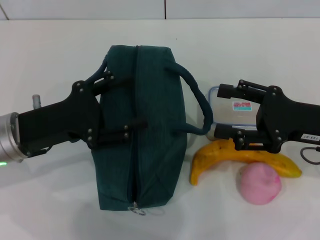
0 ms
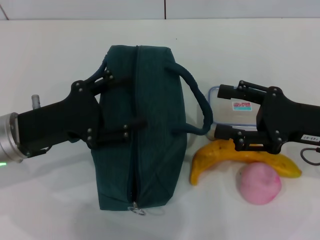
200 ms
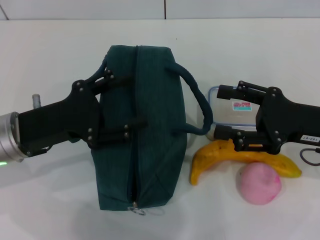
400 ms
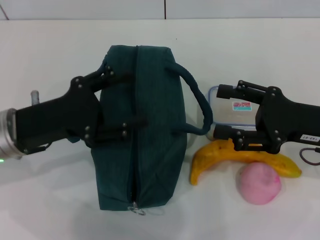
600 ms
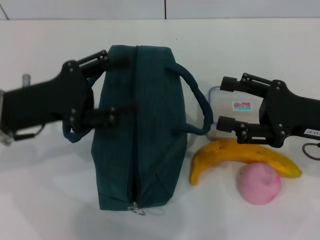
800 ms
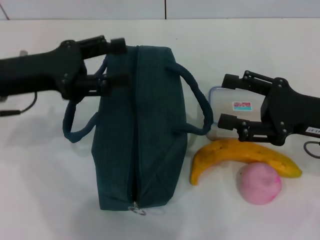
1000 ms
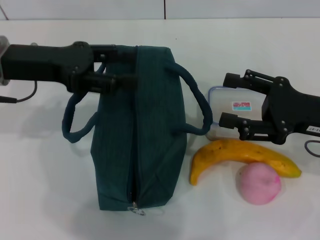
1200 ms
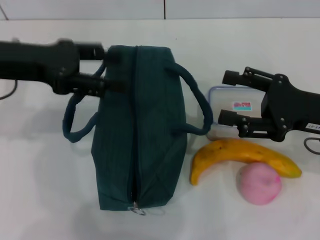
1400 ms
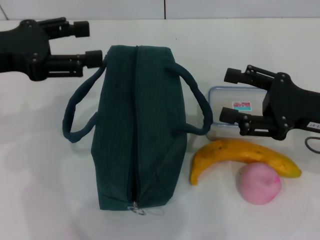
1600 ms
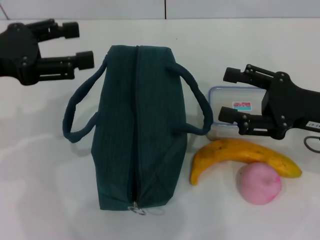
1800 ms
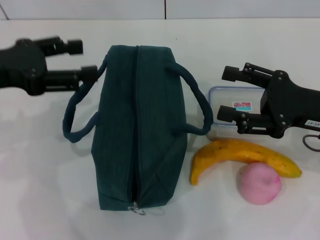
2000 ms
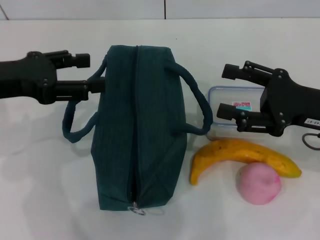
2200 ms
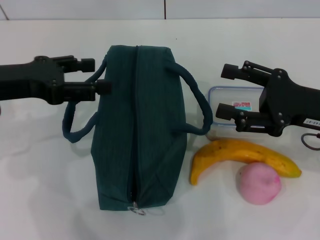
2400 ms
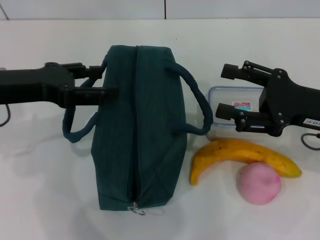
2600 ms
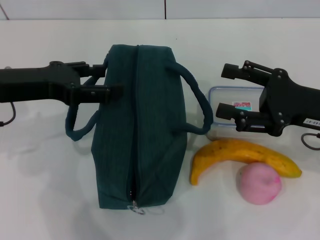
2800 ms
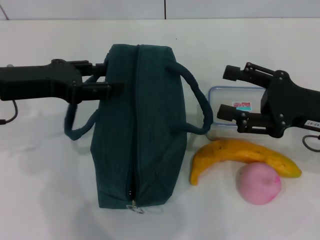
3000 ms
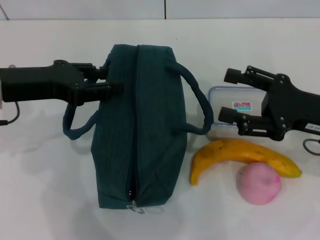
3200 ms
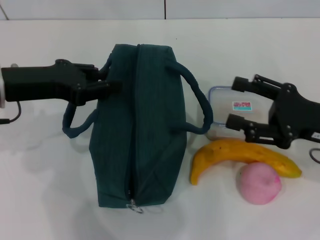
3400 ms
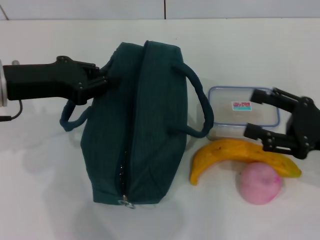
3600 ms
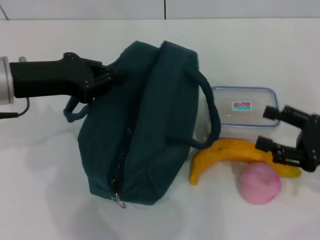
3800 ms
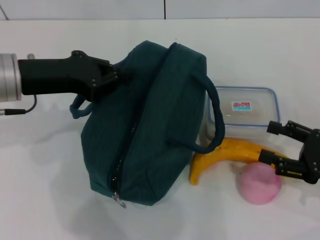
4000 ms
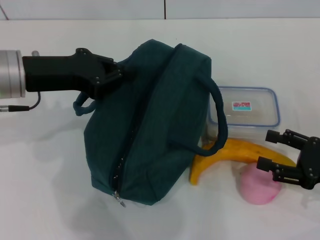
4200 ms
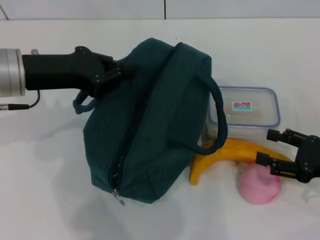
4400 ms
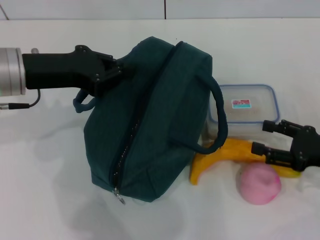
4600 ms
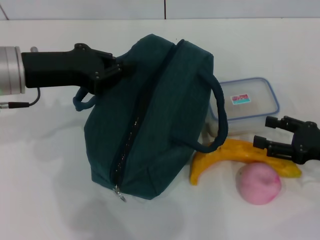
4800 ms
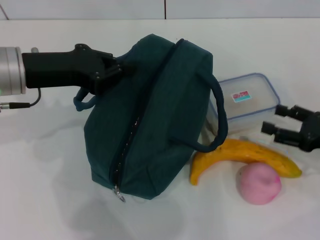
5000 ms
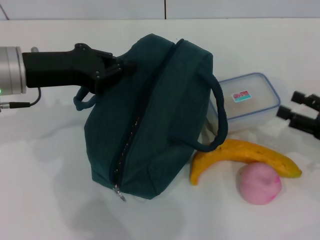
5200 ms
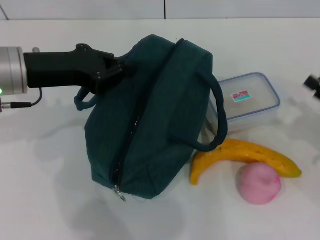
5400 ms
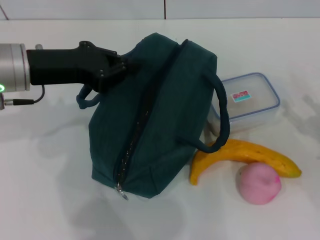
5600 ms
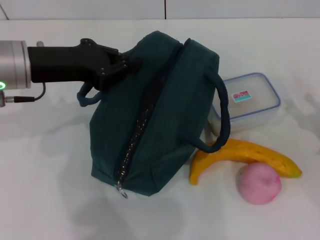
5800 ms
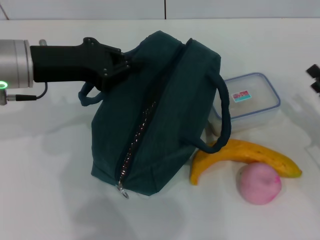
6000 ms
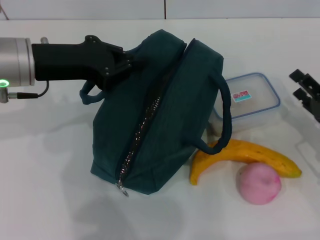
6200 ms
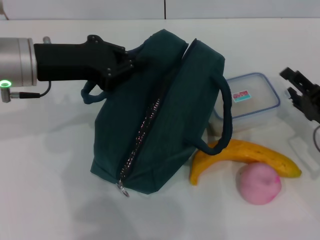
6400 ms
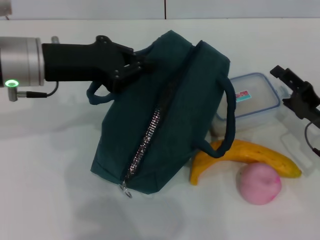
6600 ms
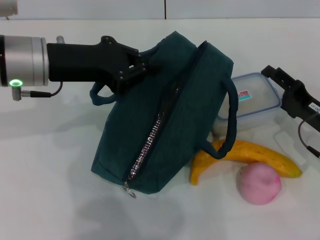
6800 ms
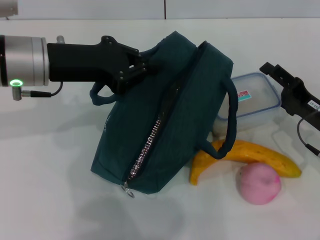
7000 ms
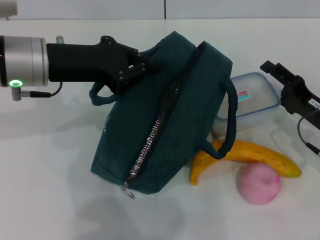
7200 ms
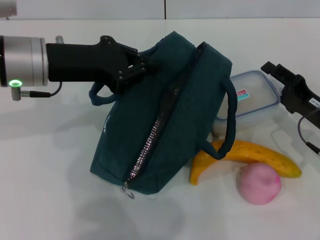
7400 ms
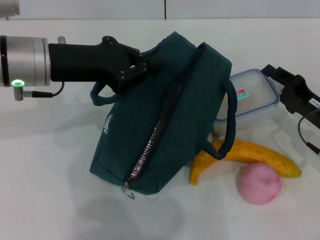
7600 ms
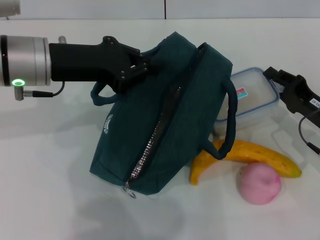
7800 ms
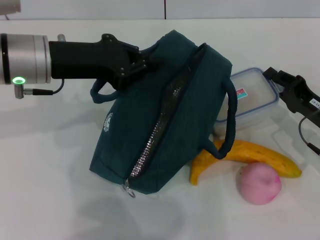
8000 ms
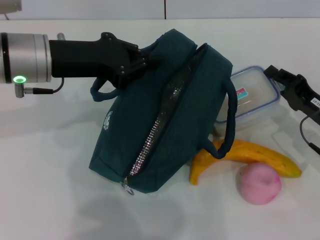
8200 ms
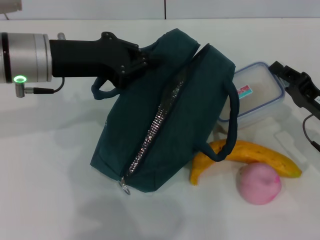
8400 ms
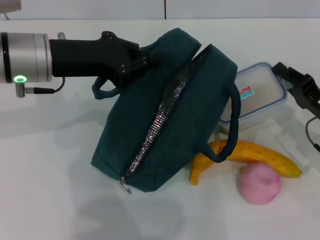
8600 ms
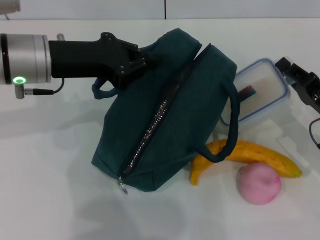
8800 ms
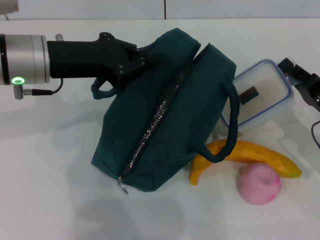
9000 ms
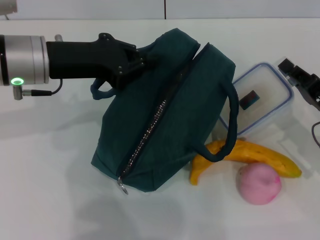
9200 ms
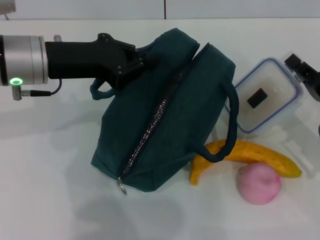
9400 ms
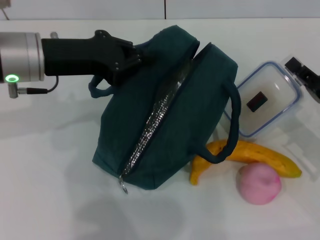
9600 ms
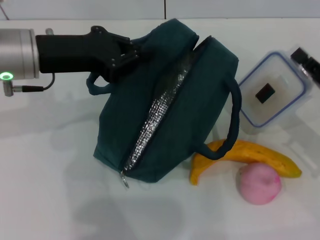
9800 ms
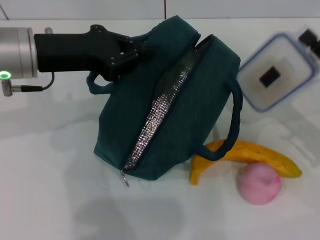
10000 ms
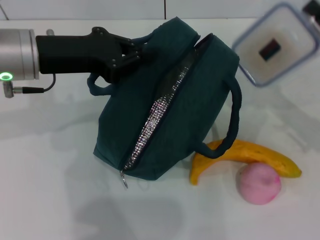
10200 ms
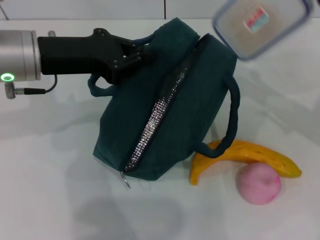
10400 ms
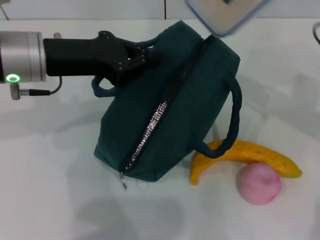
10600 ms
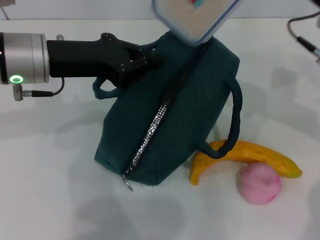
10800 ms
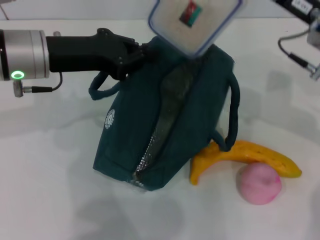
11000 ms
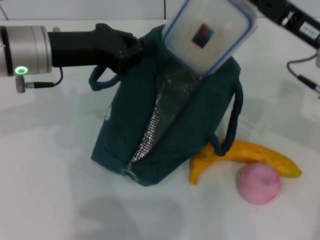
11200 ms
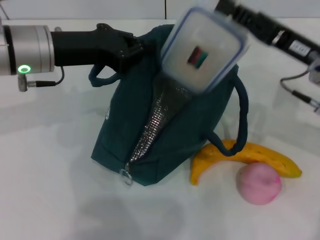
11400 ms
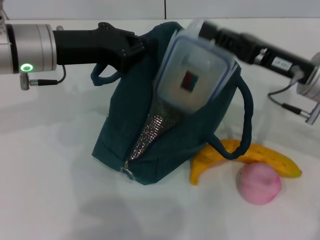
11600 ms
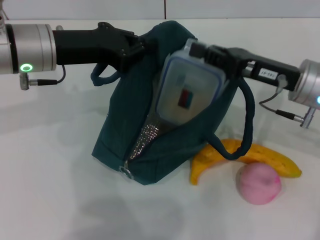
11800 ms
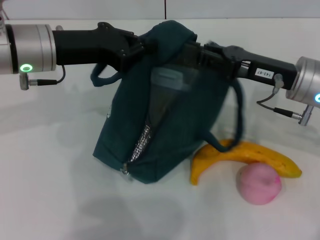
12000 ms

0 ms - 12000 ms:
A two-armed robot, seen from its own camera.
Step, 0 ms - 3600 ms: Hold the lunch bag with your left hand.
Step, 3800 ms - 8000 ms: Pick up the lunch box with your right hand.
Step, 8200 ms - 11800 ms: Place the lunch box into the lunch bag with your right hand.
0 ms - 1600 ms: The left gripper is displaced upward by approximately 10 cm.
1600 ms - 3000 ms: The grippers make only small movements.
3000 ms - 4400 ms: The right gripper is displaced downward and to the right by approximately 10 cm; the left gripper closes up.
6000 ms - 7600 ms: The right gripper moves roughly 5 cm.
7600 ms - 9000 ms: The right gripper closes.
9000 ms - 10400 ms: The right gripper shifts roughly 10 cm upward.
10400 ms - 12000 ms: The right gripper is displaced to the left by approximately 10 cm.

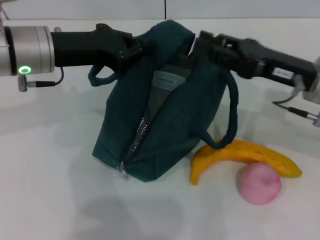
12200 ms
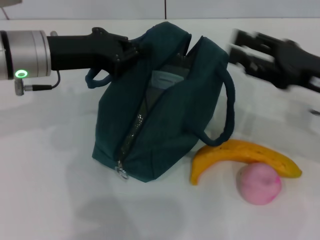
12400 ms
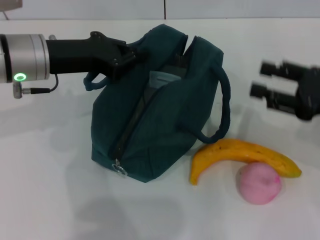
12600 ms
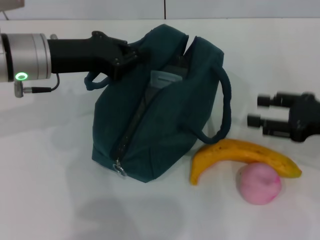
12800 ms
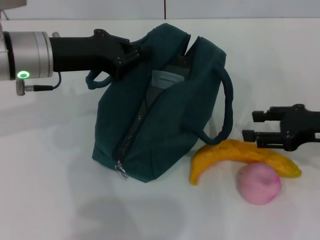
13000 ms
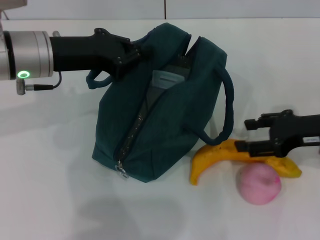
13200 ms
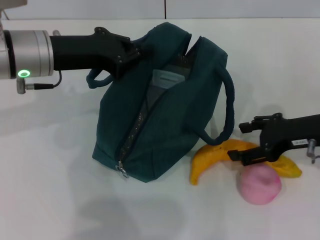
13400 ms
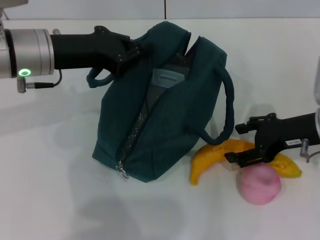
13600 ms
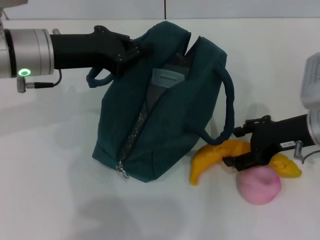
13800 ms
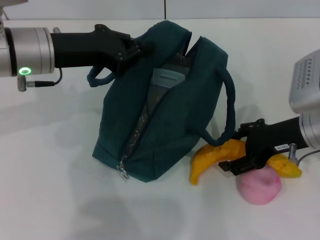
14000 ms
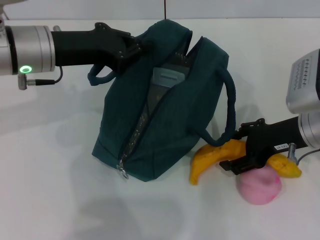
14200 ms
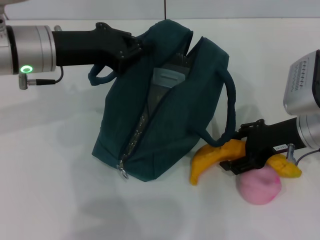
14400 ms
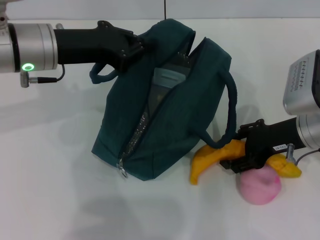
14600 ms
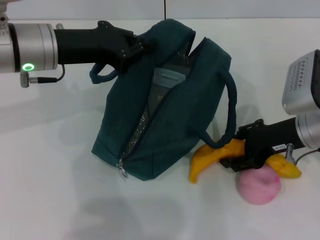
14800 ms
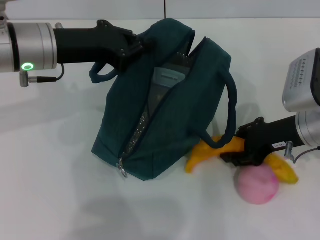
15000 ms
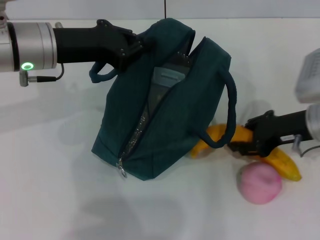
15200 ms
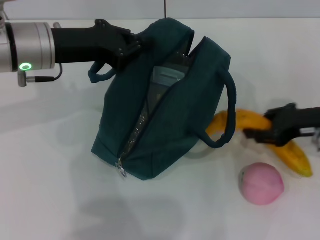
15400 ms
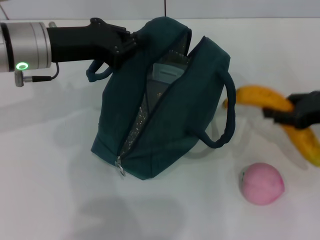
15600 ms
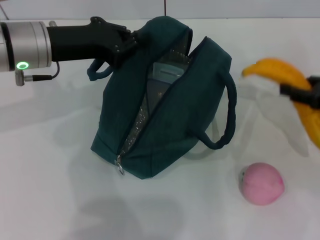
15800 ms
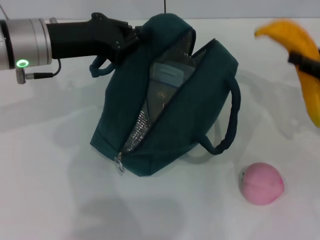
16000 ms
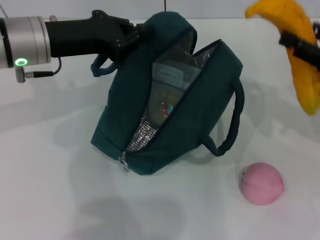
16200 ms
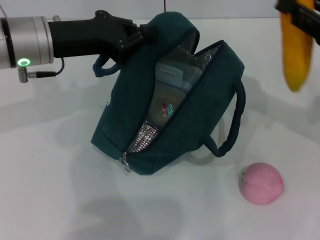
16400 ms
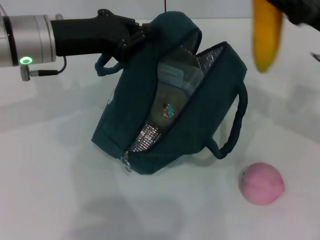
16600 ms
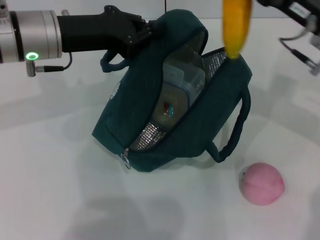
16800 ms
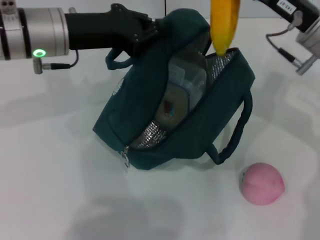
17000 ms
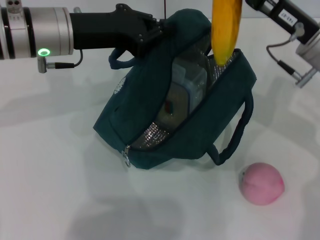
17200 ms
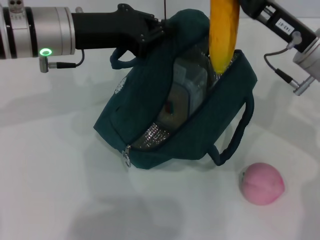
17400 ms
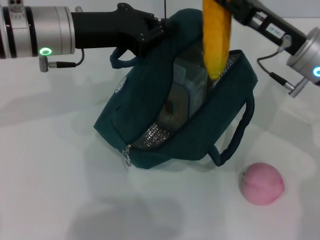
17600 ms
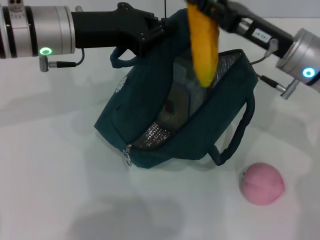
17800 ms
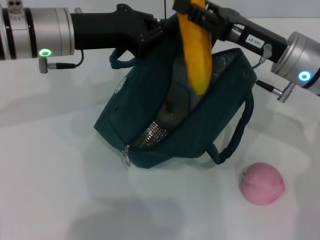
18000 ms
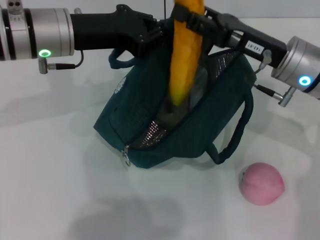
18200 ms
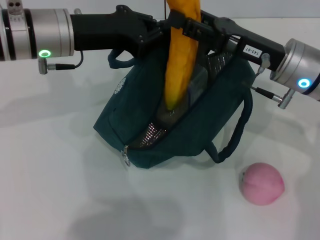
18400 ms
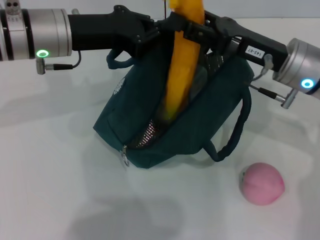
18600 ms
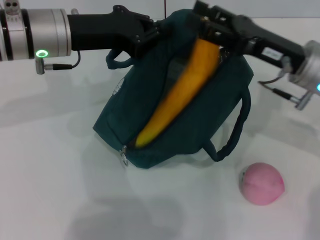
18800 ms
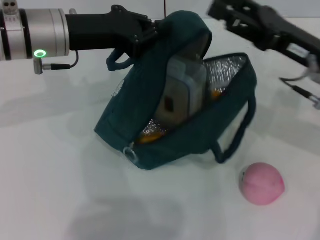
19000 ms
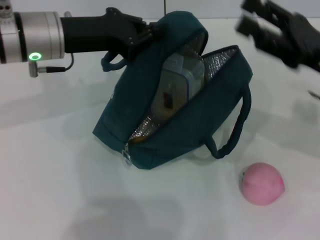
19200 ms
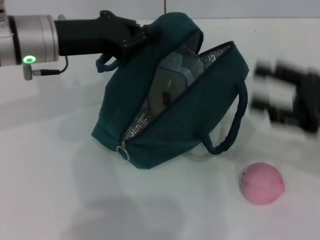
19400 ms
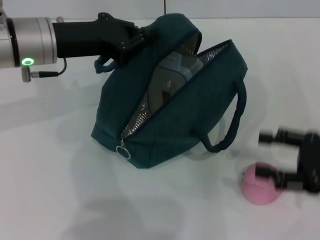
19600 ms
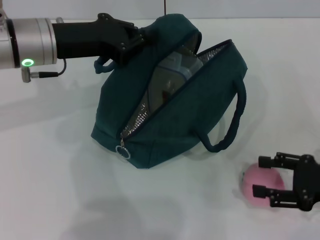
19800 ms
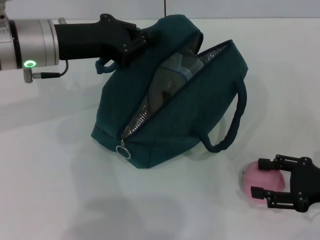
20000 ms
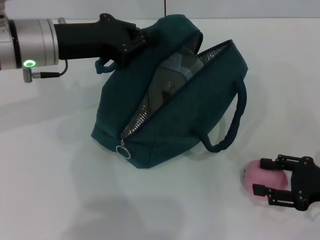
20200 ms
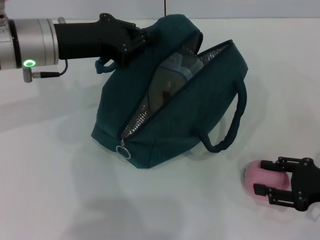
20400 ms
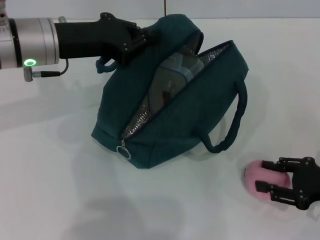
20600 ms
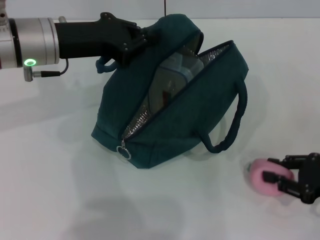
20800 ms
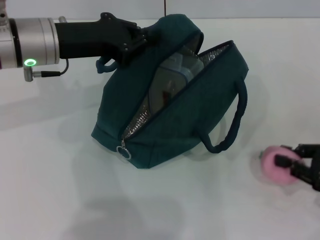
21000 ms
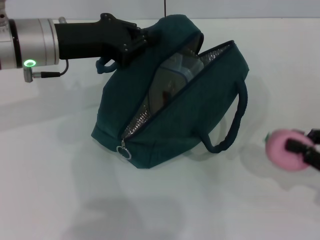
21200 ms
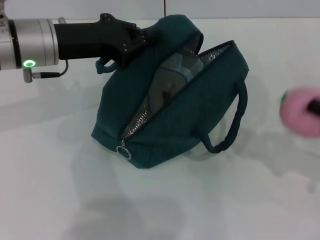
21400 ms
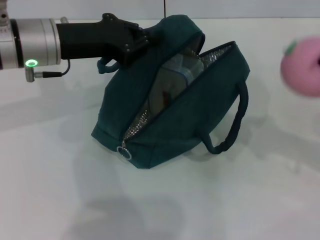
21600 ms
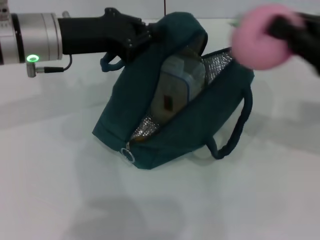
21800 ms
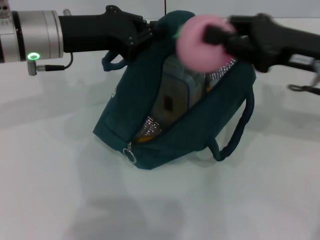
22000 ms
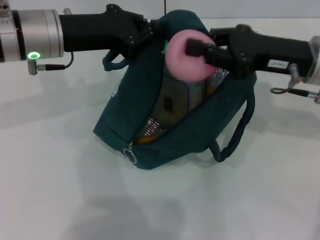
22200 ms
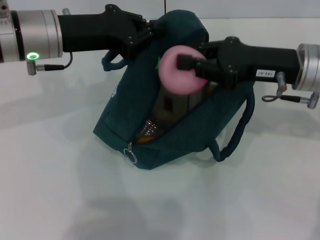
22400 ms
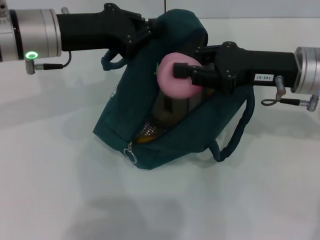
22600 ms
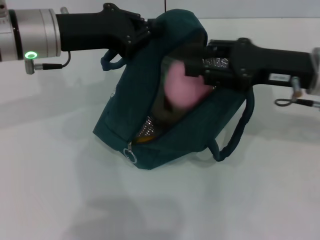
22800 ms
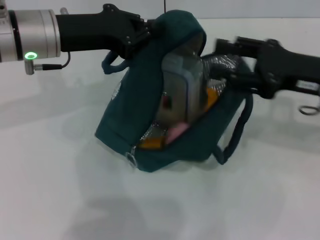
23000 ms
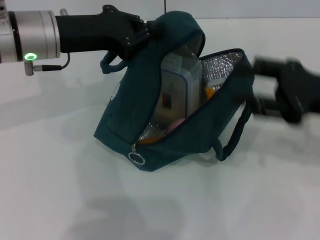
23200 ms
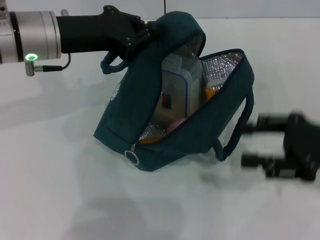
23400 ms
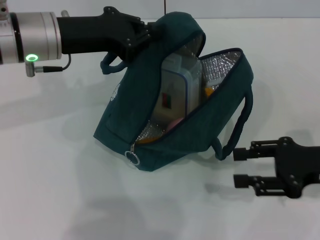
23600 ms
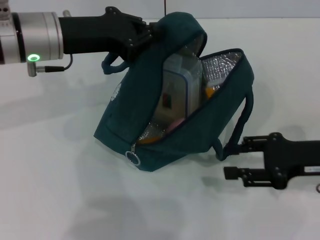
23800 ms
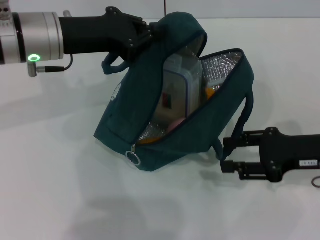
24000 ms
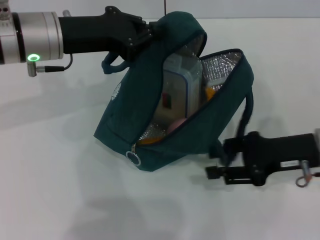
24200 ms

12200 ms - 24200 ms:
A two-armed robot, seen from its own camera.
Step, 12200 ms - 15000 ms: Take the banana with your right hand.
Step, 15200 ms - 18800 ms: Put the banana into the lunch bag with your right hand.
Step, 19200 ms - 20600 ms: Grab the peach with your right hand.
12200 ms - 13800 ms: The right gripper travels to the right and back again, some 10 cm each way, and opens up.
13800 ms - 15200 ms: The right gripper closes up.
15200 ms - 16600 ms: The right gripper travels upward by about 5 cm, and moves about 10 cm to the right and comes back.
16600 ms - 18200 ms: The right gripper is displaced to the left by some 10 cm.
18200 ms - 19800 ms: The right gripper is displaced to the right, backward and downward by some 20 cm.
19800 ms - 21200 ms: The right gripper closes up.
21200 ms - 22600 ms: The right gripper goes some 20 cm to the left, forward and upward.
22600 ms - 24200 ms: The right gripper heads downward and backward, covering approximately 10 cm, and opens.
